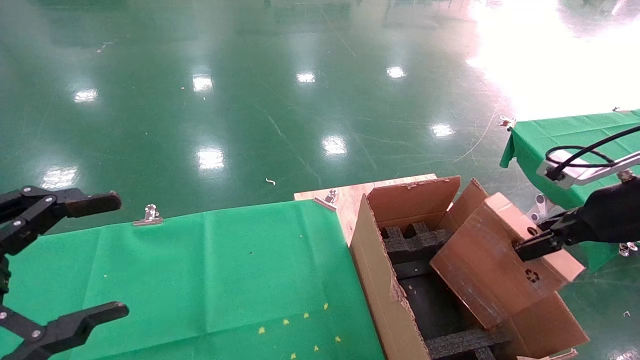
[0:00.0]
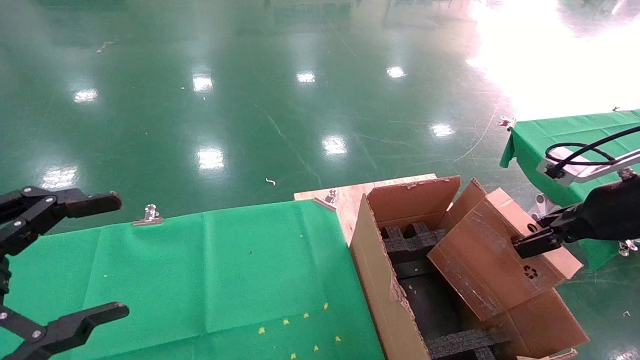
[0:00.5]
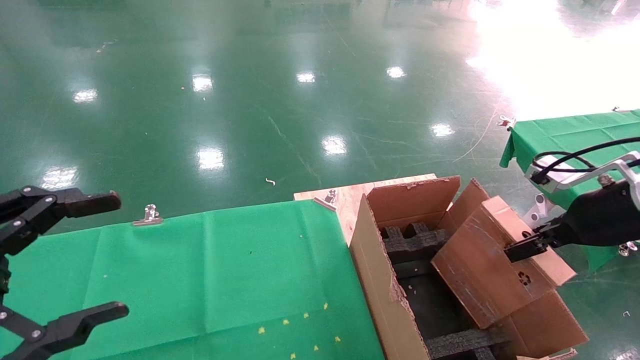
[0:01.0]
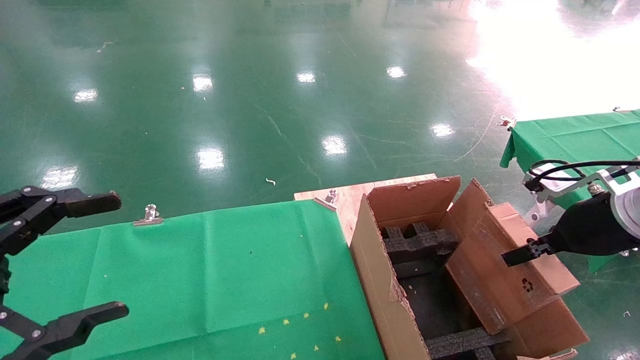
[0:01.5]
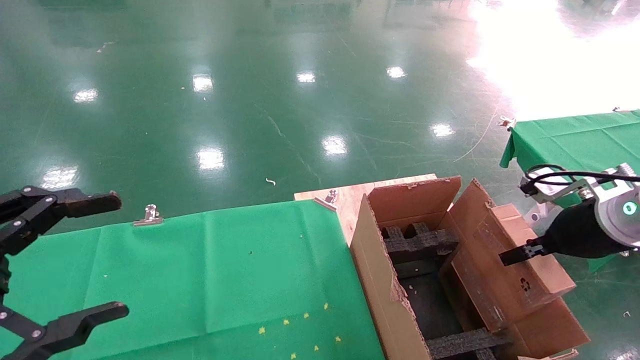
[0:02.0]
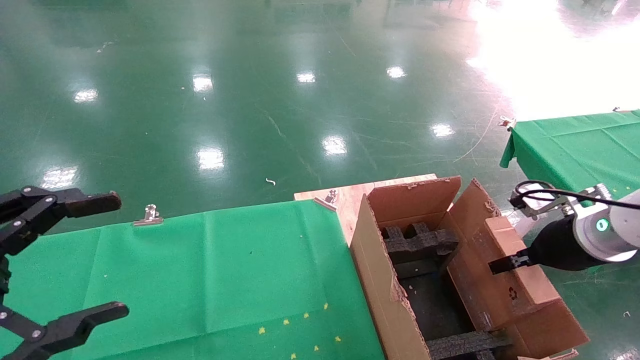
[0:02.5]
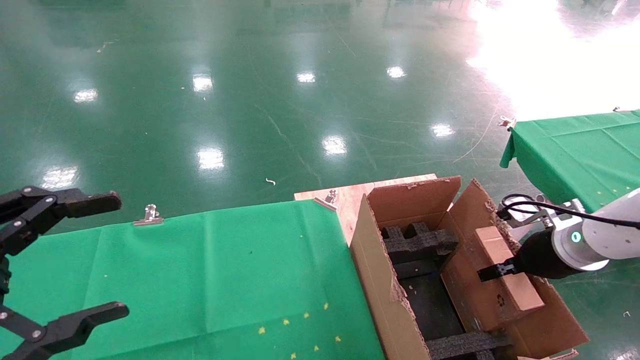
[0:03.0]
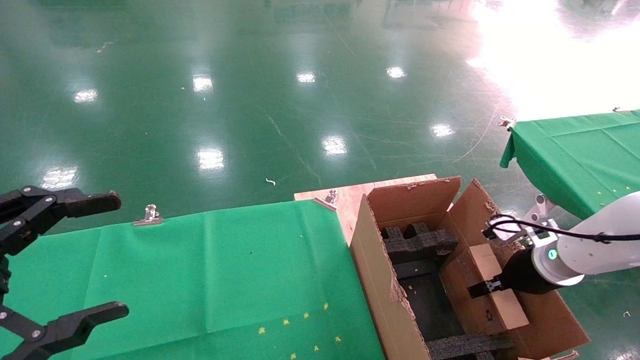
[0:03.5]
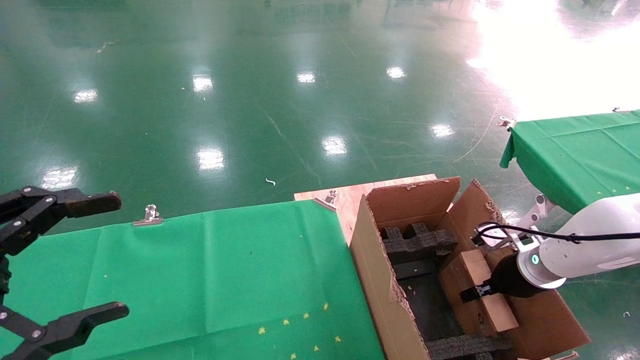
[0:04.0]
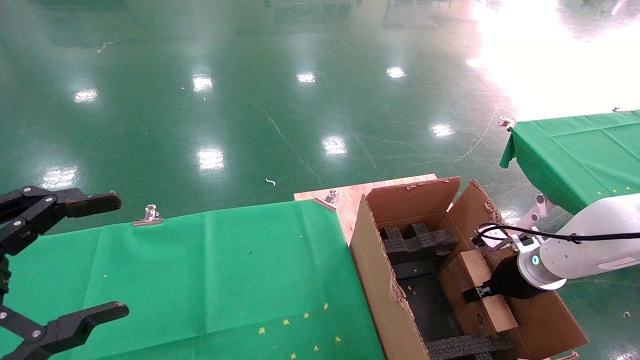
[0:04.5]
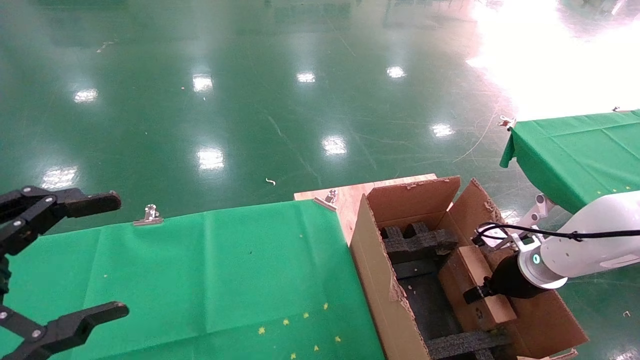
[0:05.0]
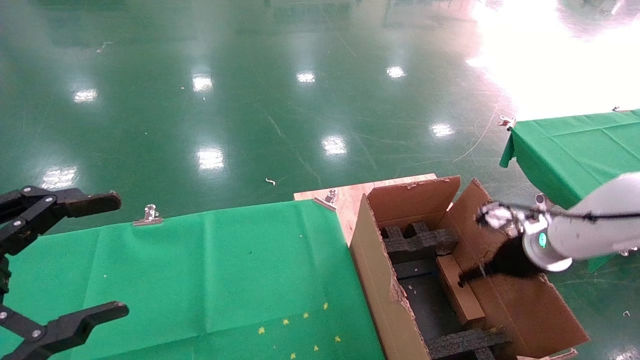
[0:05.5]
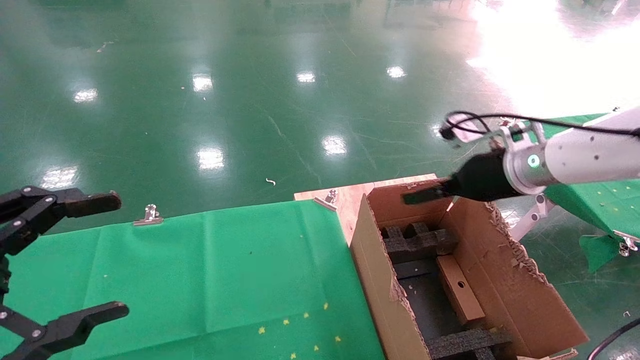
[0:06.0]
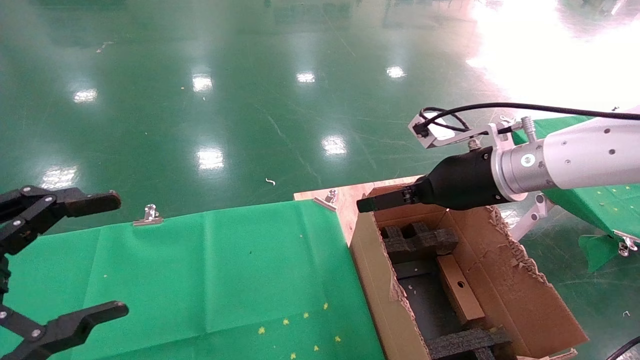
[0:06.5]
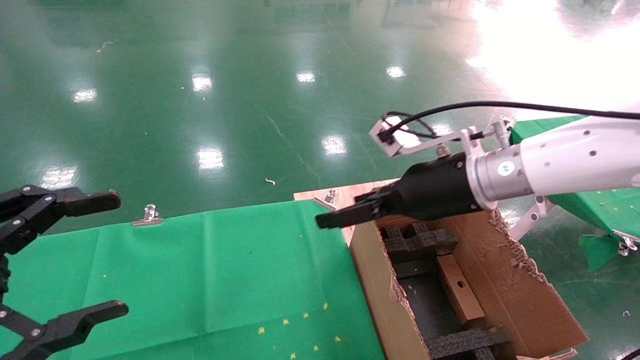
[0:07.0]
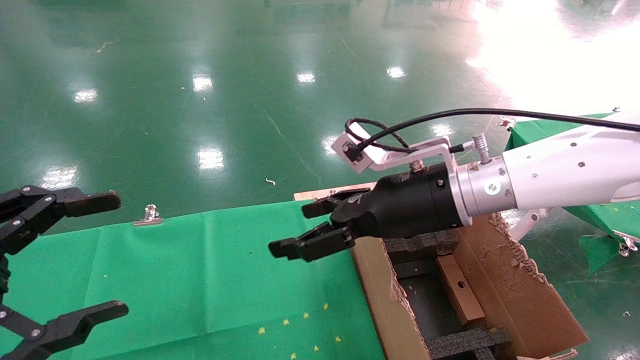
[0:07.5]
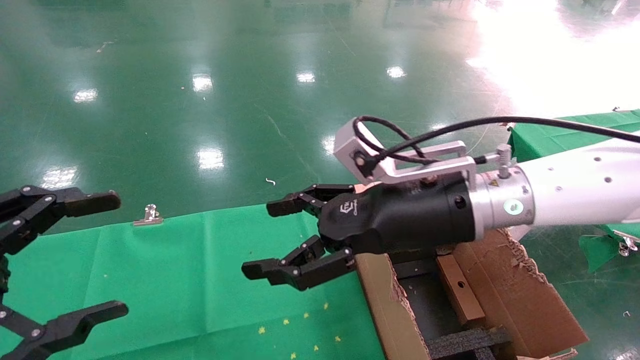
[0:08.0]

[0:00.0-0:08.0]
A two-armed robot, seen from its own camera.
Task of the whole recording: using a robotic arm to pick up a cardboard box and palace it the carton.
Step, 0:00.0 to 0:05.0: Place the mouse and the power cord paper box into the container.
0:00.0 to 0:02.0: The right gripper moves about 5 cm.
0:02.0 to 0:04.0: The right gripper is displaced downward and forward by approximately 15 cm.
0:04.0 to 0:06.0: The right gripper is displaced upward and to the left by about 20 cm, and opens its fingers.
0:06.0 to 0:08.0: The right gripper goes some 15 cm to the left and backward.
